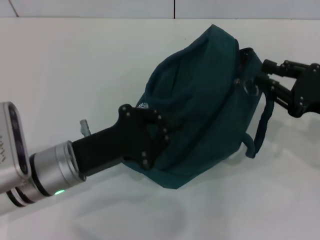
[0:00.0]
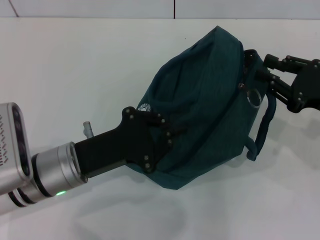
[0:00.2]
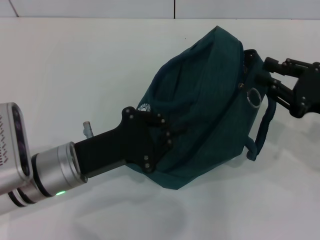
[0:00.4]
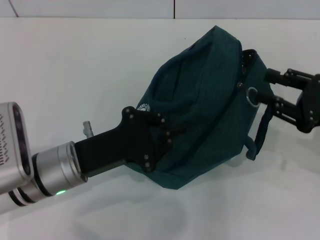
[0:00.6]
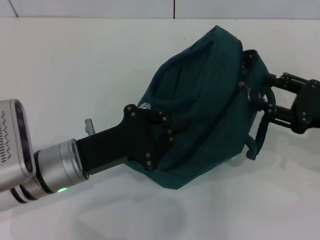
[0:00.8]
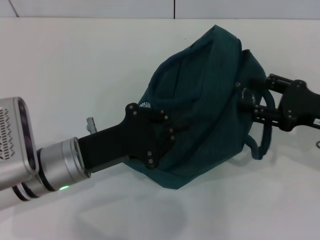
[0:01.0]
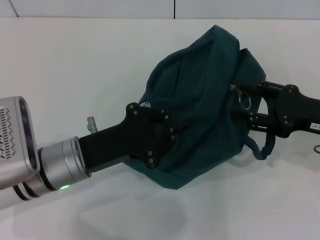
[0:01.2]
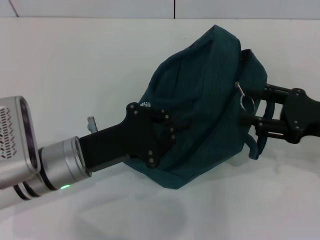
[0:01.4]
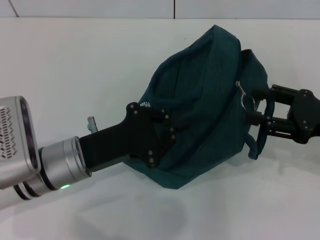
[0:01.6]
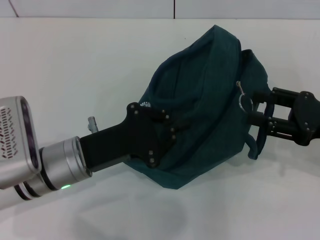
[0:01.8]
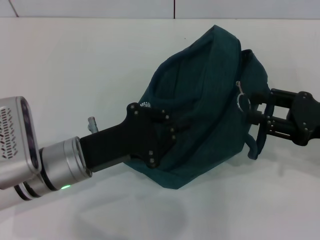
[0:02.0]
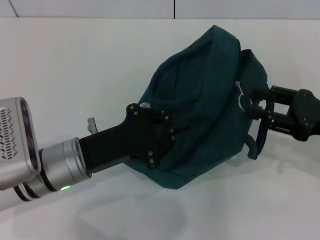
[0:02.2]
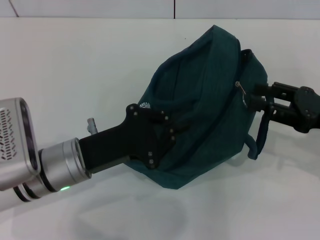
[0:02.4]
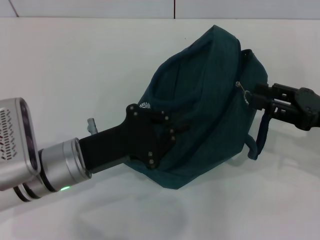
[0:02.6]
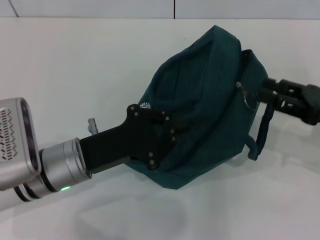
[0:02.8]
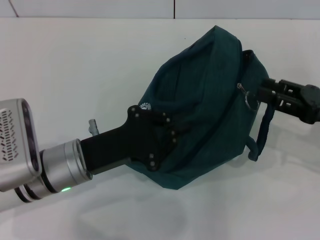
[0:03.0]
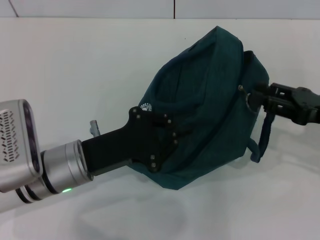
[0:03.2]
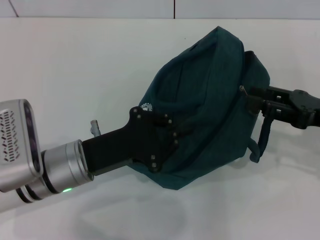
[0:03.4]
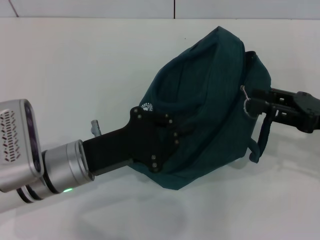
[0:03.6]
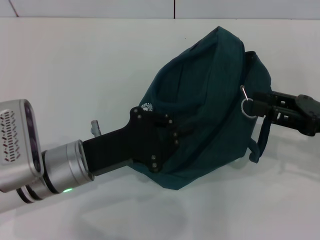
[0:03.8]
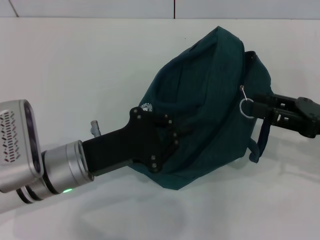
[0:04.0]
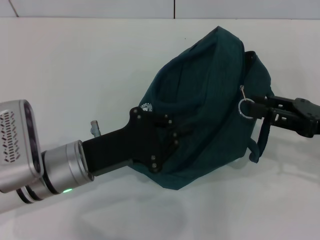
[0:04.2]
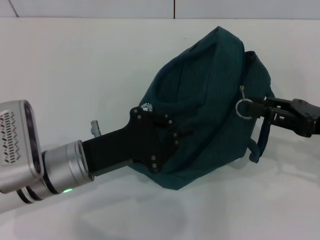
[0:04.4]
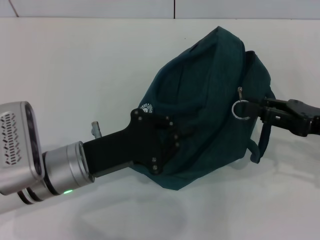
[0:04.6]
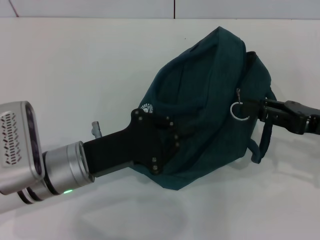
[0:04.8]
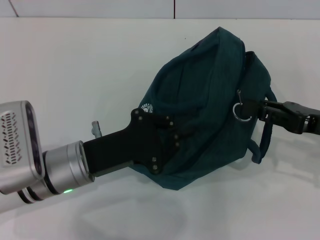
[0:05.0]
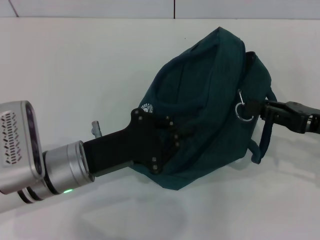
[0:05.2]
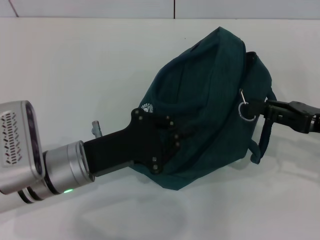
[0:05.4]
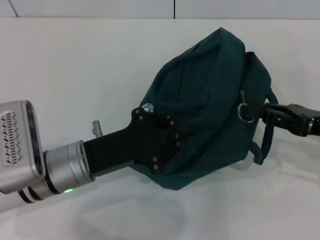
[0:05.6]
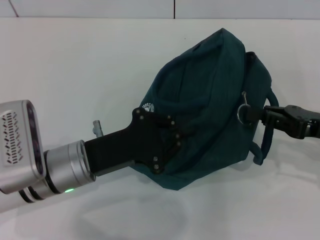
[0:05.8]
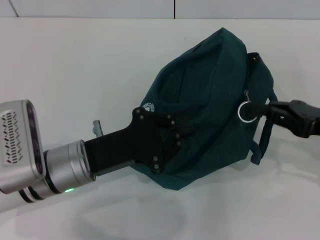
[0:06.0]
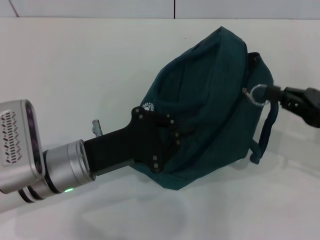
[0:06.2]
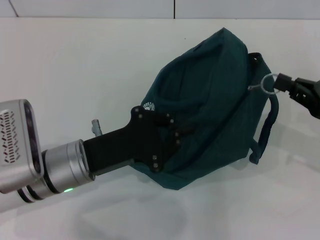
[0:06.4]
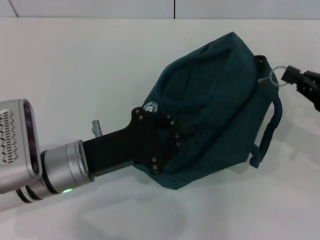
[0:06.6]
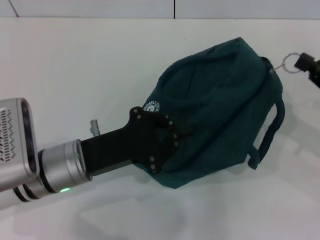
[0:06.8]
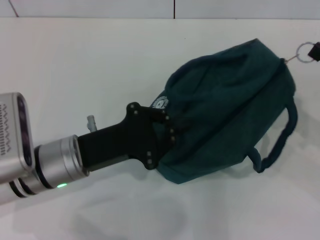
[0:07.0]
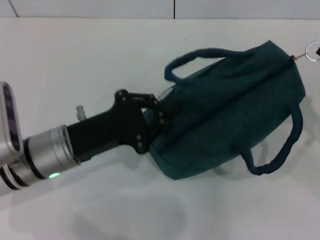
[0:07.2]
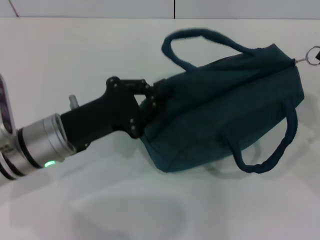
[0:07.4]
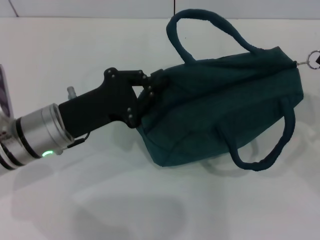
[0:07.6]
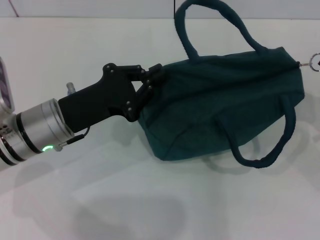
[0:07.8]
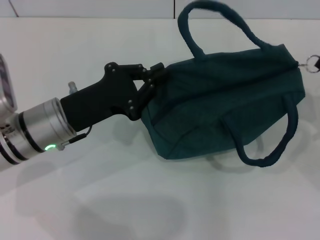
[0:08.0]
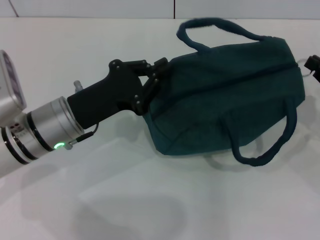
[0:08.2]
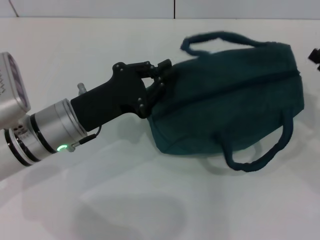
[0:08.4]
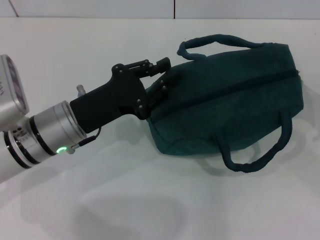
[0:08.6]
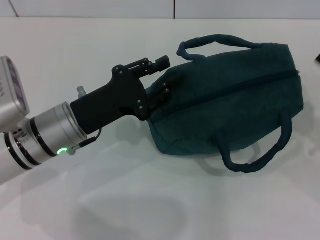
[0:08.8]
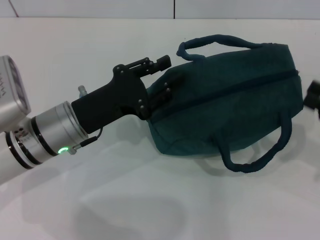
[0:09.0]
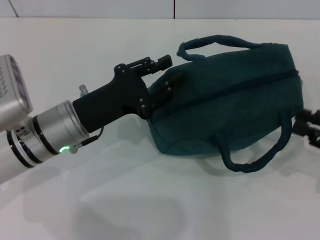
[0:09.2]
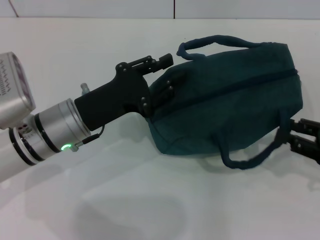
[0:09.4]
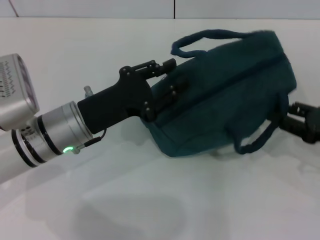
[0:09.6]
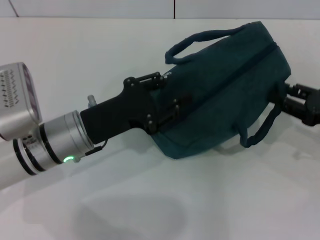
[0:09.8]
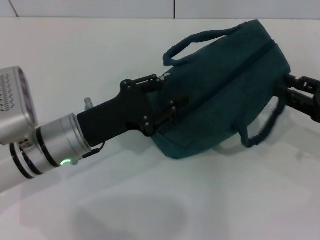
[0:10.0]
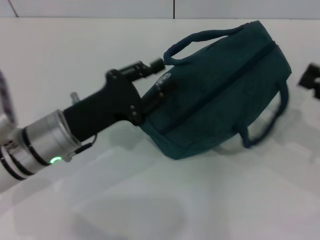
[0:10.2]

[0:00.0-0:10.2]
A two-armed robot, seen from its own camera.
Step, 0.0 to 8.2 s: Zip up the lunch bag with your right hand.
0.0 to 1.4 s: The right gripper opens.
1.4 to 3.0 s: The grippers stay close to where they were, moving slightly.
3.0 to 5.8 s: There are only small adjustments of the grippers.
5.8 to 7.2 s: The right gripper is displaced to the right by approximately 5 cm.
7.2 to 8.8 s: The right gripper opens its fingers.

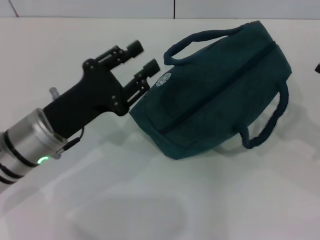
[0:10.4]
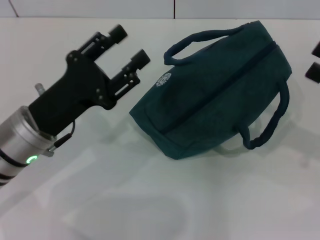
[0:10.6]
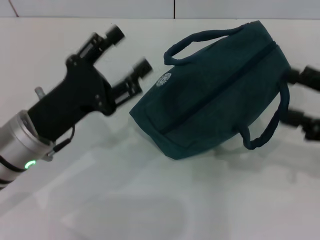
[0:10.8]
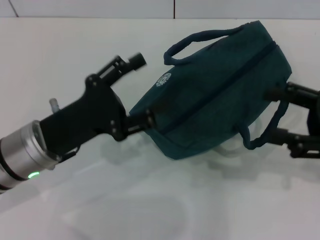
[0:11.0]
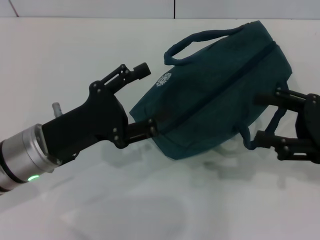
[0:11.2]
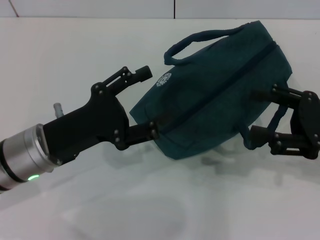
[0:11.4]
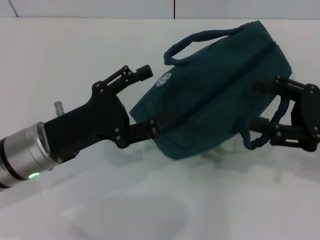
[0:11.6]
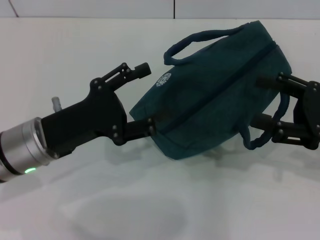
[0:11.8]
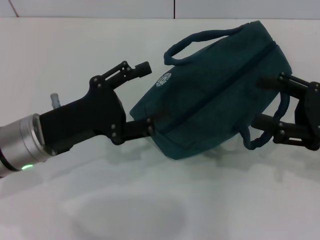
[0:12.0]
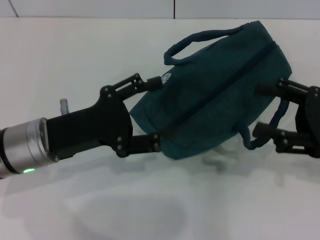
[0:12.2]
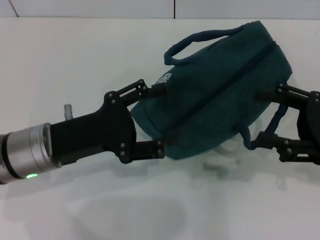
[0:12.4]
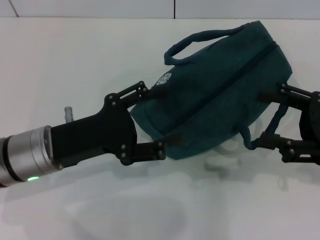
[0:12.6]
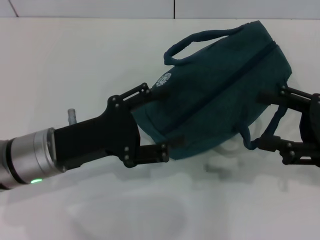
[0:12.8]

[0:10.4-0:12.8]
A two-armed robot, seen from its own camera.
10.4 to 11.6 s: The right gripper moves to the left, about 5 cm, and opens up. Meanwhile the left gripper opens up.
11.6 to 12.8 s: The grippers stay close to where they were, moving slightly.

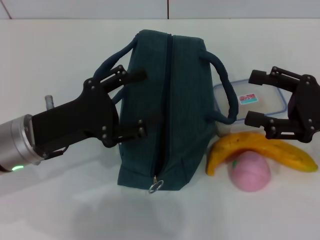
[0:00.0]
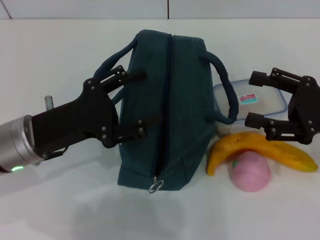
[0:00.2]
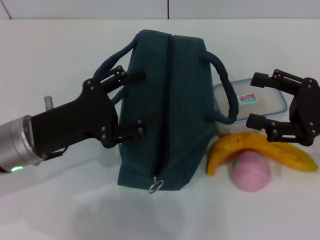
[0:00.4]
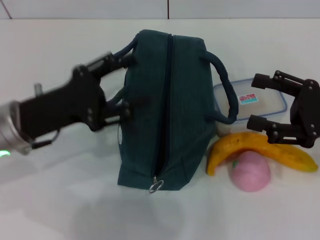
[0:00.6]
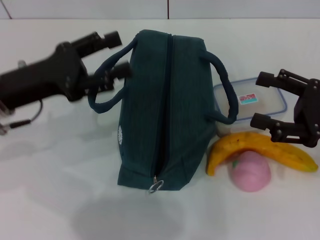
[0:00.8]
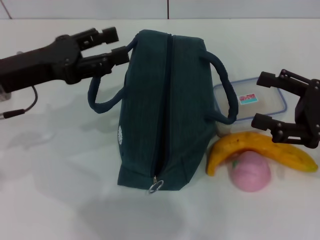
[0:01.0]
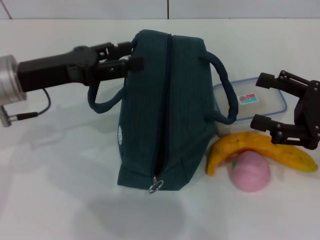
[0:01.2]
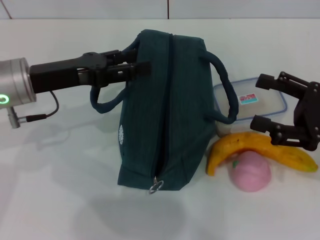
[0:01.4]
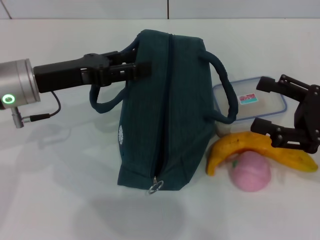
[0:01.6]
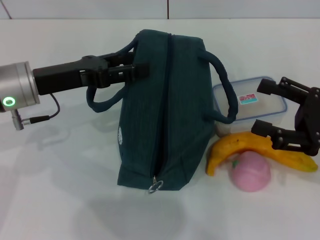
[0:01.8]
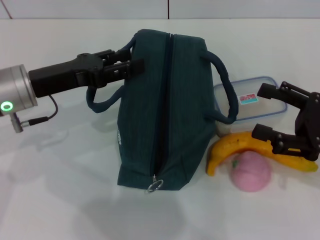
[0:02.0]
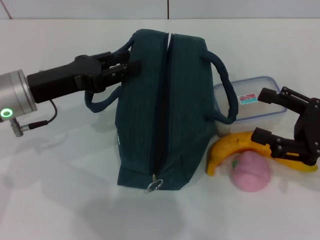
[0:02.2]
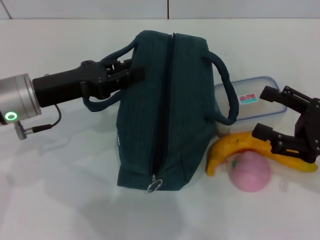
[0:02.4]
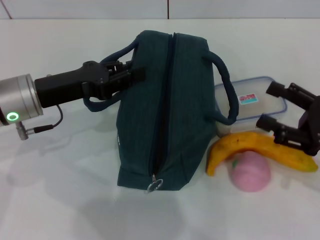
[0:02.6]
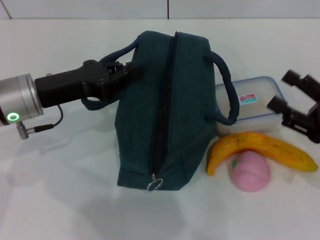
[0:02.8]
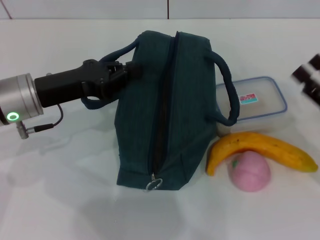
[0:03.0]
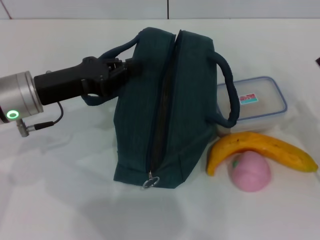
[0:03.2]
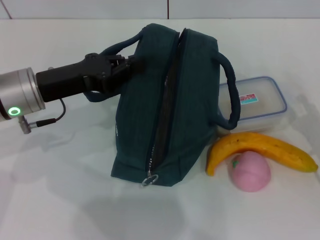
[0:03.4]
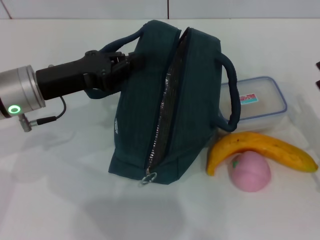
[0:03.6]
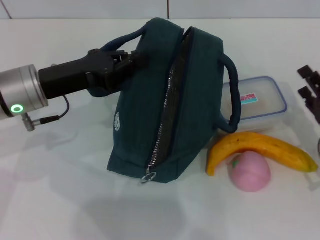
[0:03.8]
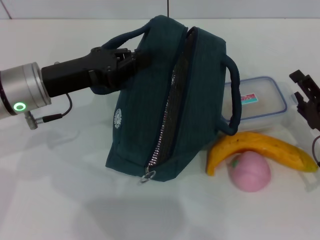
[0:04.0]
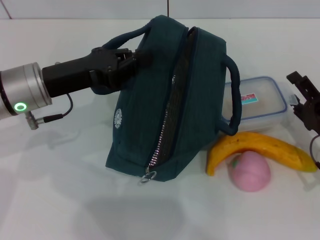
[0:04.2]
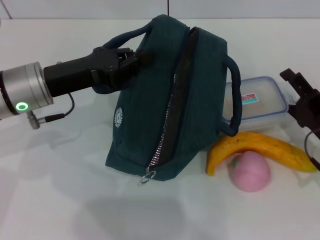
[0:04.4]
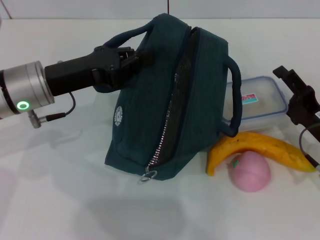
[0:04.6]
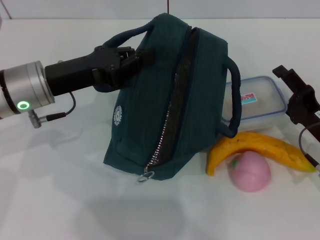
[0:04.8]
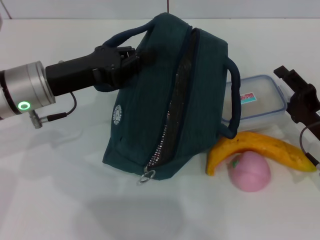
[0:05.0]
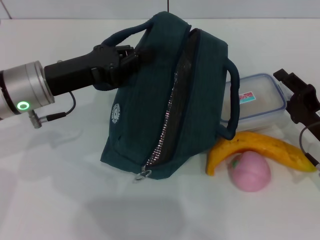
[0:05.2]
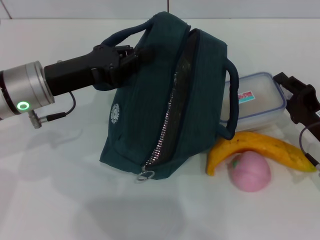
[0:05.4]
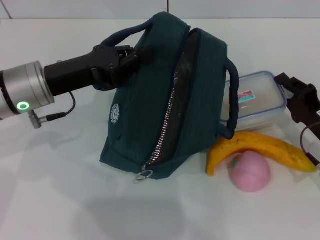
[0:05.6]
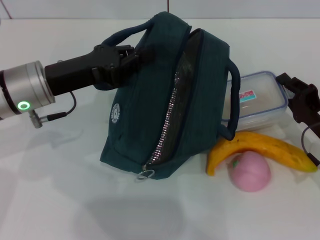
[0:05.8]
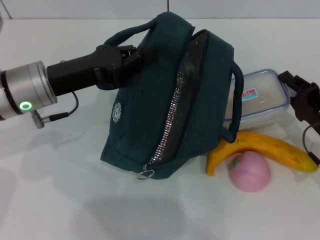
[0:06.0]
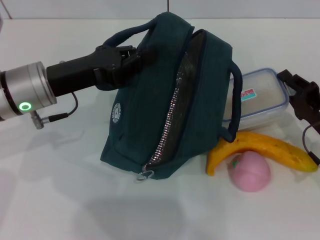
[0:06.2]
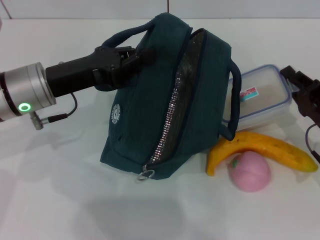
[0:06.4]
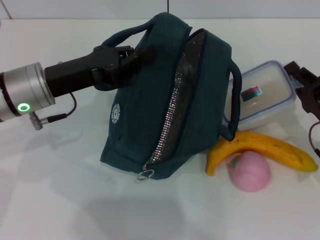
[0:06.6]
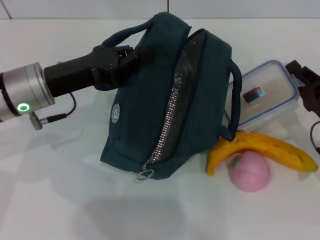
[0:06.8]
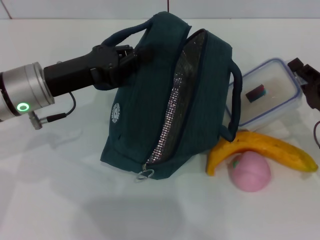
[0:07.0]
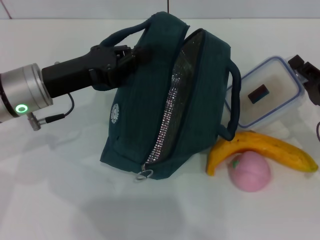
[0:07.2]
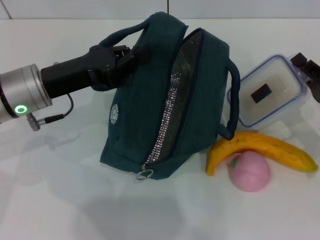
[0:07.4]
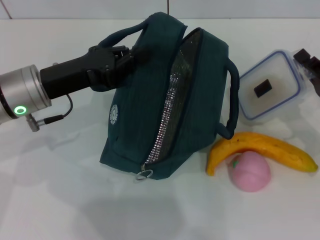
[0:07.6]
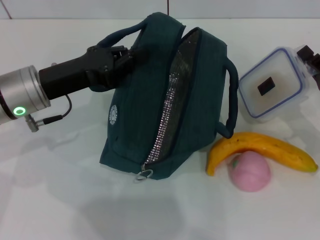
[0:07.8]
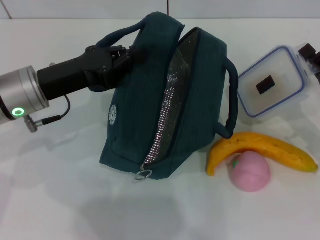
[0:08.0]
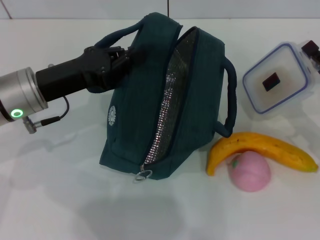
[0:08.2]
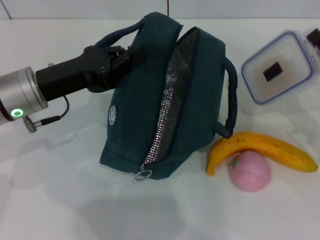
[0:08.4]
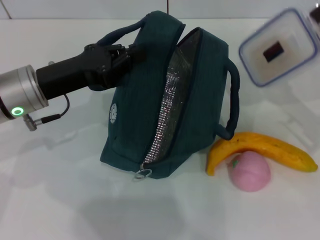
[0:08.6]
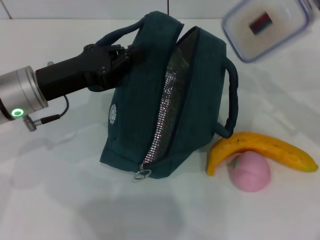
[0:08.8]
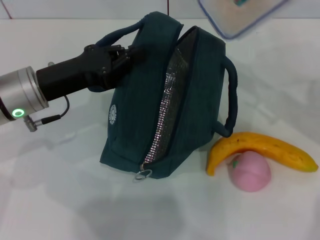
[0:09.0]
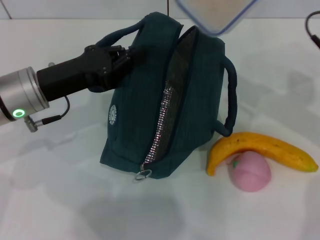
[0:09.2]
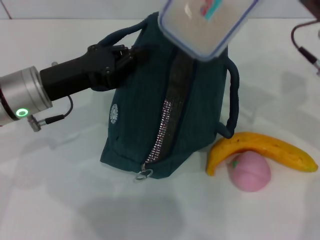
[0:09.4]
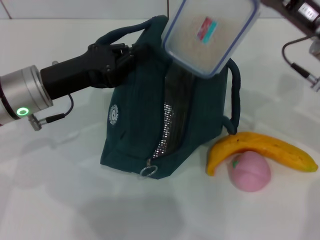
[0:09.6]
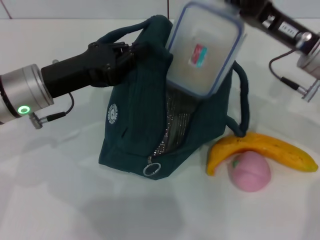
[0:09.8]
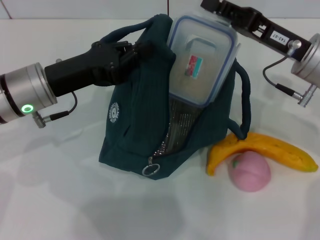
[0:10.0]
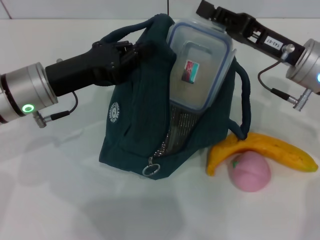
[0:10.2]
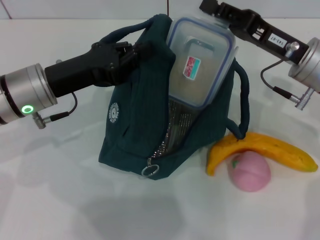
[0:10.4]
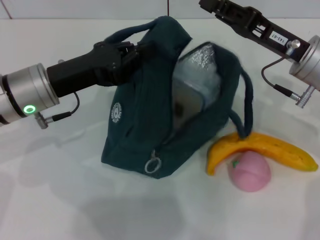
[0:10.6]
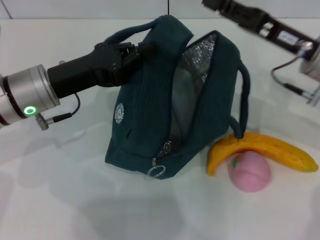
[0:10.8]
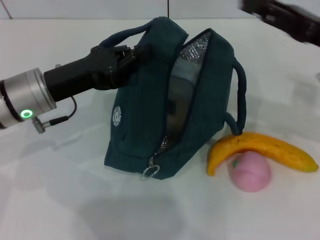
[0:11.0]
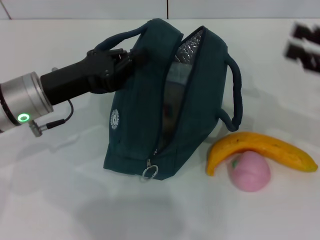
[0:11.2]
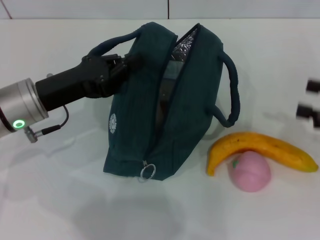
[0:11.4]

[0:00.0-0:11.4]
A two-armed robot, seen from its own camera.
Step, 0.0 to 3.6 s: Hold the lunch bag with your left hand.
Step, 3.8 to 6.0 s: Pick up the lunch box with your right hand.
Step, 6.2 to 11.0 s: Place the lunch box into the lunch bag with your right hand.
0.0 to 1.4 s: The left gripper moves forward, approximately 5 cm.
1.4 to 2.8 s: The left gripper closes.
2.8 to 4.2 s: The right gripper moves downward, some 5 cm.
4.2 to 5.6 s: The right gripper closes up.
5.6 to 7.2 s: The grippers stay close to where they were, moving slightly.
7.2 to 8.6 s: The right gripper heads upward, covering some 5 cm.
8.6 to 10.0 s: The right gripper moves to the left, approximately 10 cm.
10.0 to 11.4 s: The right gripper travels to the right and backward by about 15 cm, and opens its fingers.
